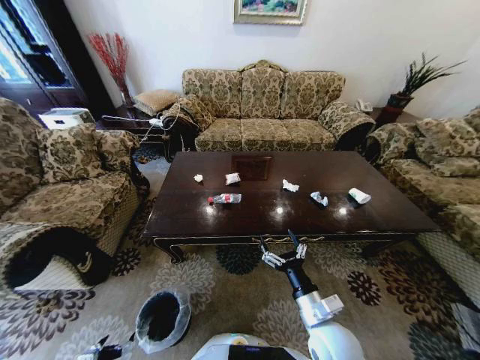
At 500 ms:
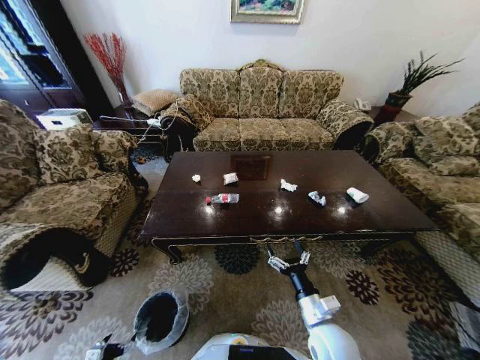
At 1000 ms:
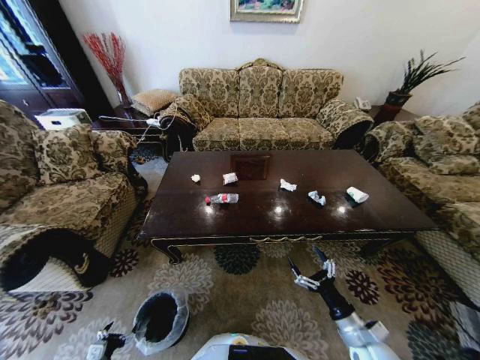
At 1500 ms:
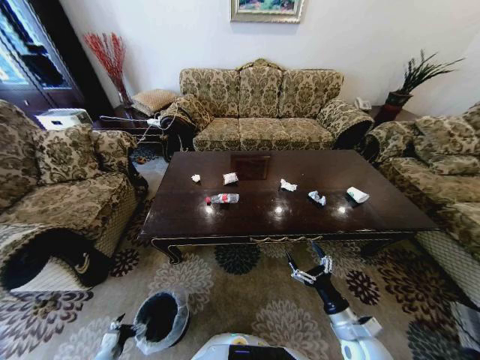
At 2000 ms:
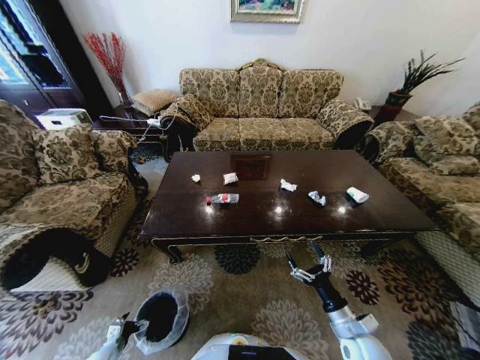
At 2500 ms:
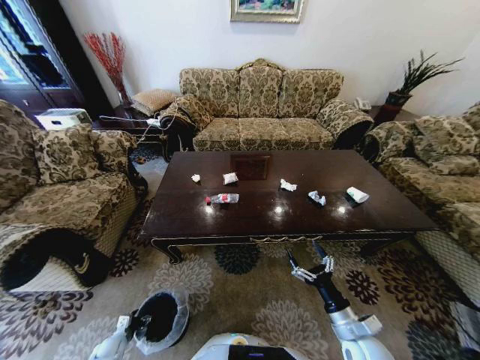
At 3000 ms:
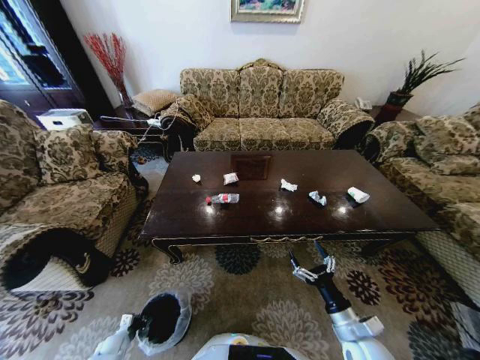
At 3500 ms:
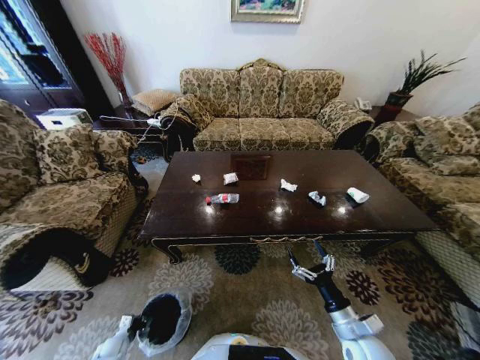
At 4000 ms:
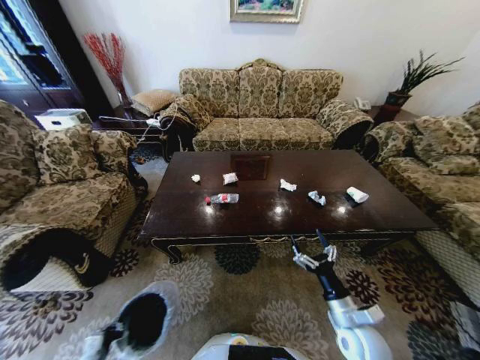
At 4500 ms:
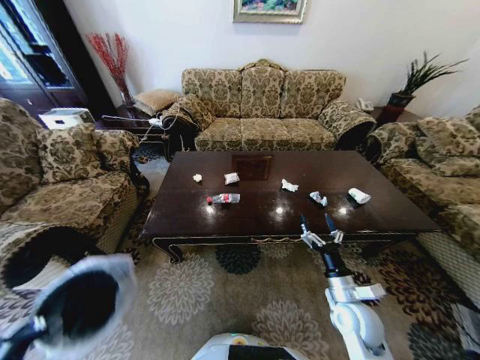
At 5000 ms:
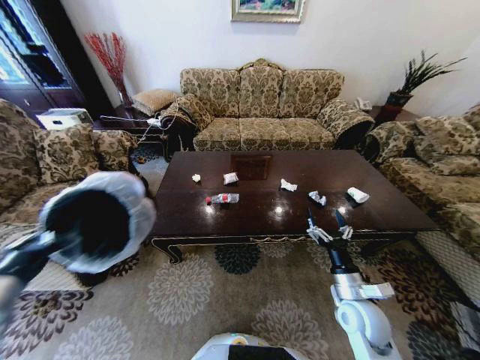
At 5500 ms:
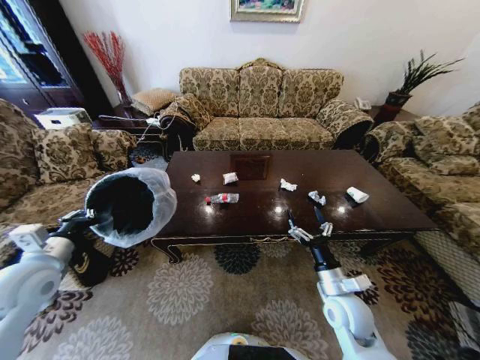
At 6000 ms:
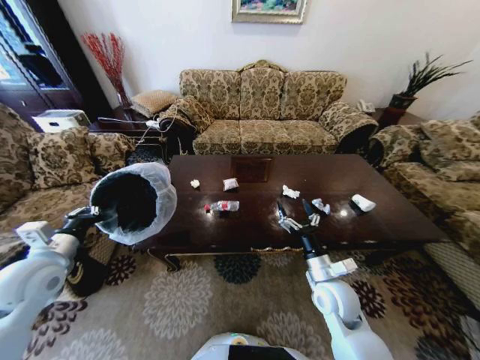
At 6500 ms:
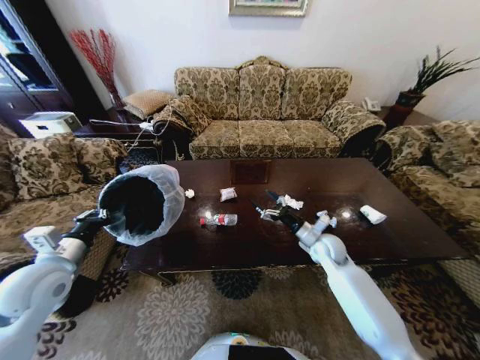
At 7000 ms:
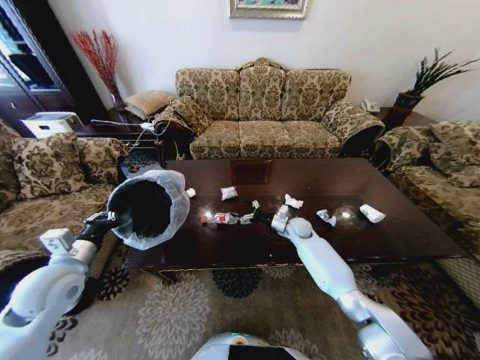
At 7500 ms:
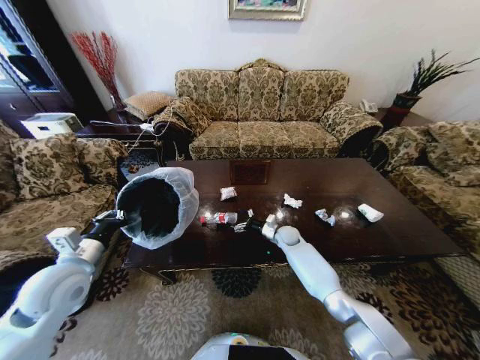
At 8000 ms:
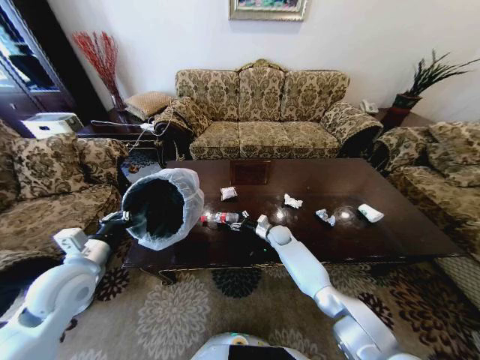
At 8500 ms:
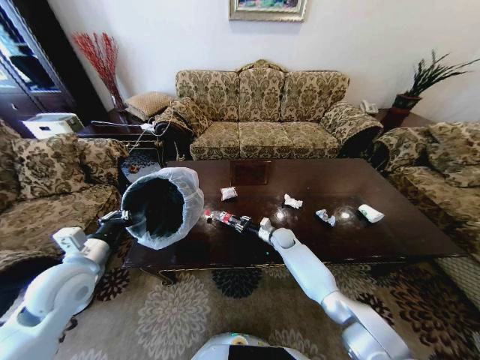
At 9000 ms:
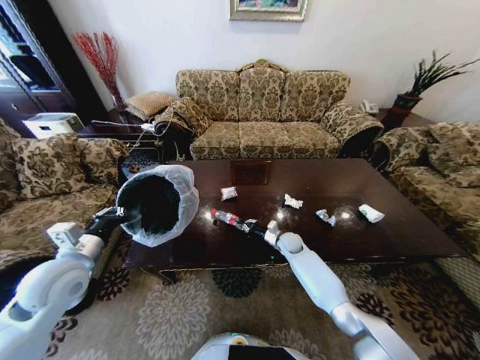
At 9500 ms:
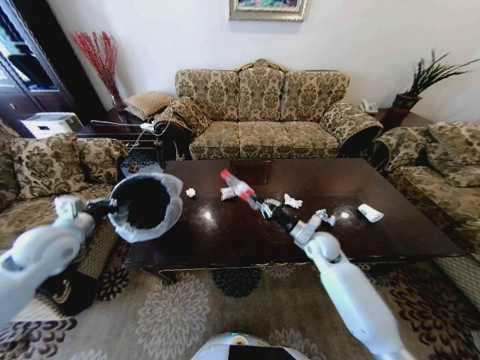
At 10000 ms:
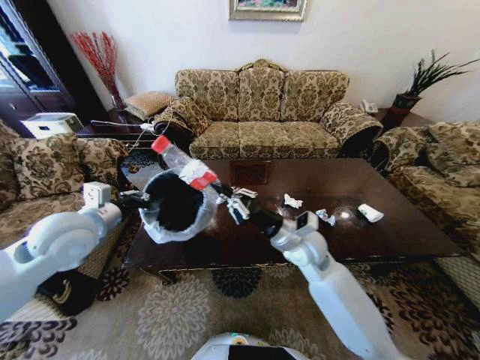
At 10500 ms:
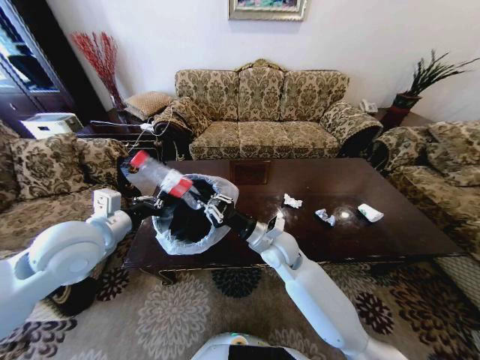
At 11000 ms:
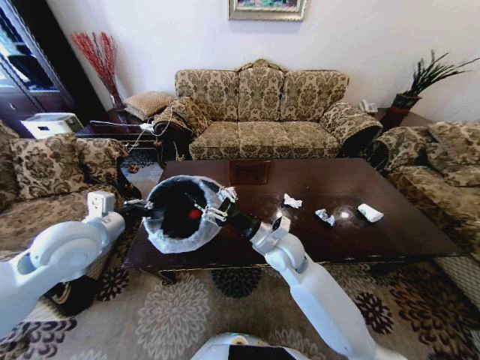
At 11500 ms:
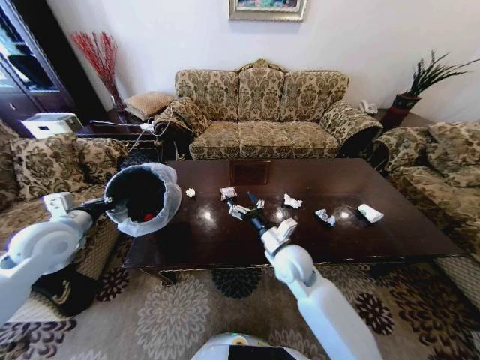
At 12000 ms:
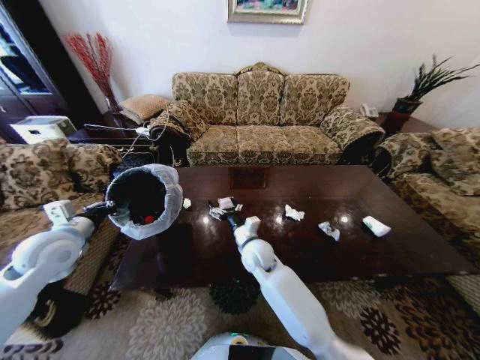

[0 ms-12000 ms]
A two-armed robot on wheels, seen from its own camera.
Task of the whole recording: Move to the front of the table and place the trash on the table into the trash bin.
0 ms to 2000 ms: The left gripper travels downward and forward by approximately 15 cm. Meanwhile the right gripper is displaced to the right and downward by some 15 cm.
2000 ms to 4000 ms: The left gripper moves upward, roughly 10 cm, and closes.
4000 ms to 6000 ms: The right gripper is displaced forward, upward and to the left by some 10 cm; the left gripper is displaced upward and forward by some 35 cm.
6000 ms to 8000 ms: The right gripper travels forward and downward by about 30 cm. Meanwhile the left gripper goes some 5 cm to the right.
8000 ms to 10000 ms: The right gripper moves upward and backward, approximately 30 cm, and closes. The left gripper travels upward and forward by approximately 10 cm.
10000 ms to 12000 ms: The left gripper moves to the left and downward, about 10 cm. The right gripper travels to the left and downward by about 15 cm, and opens up.

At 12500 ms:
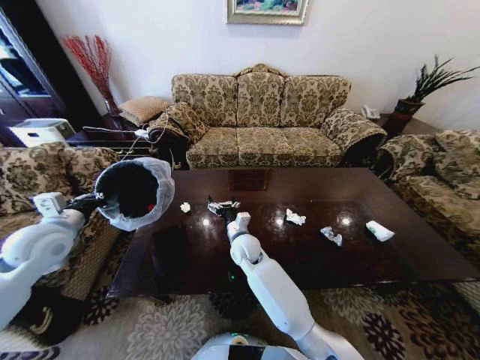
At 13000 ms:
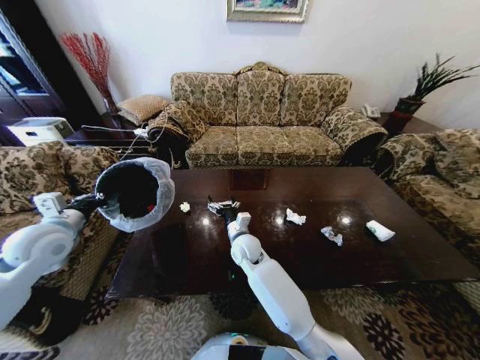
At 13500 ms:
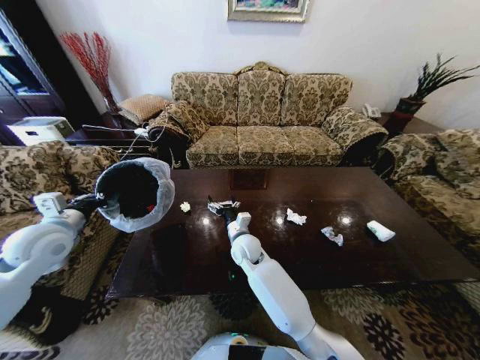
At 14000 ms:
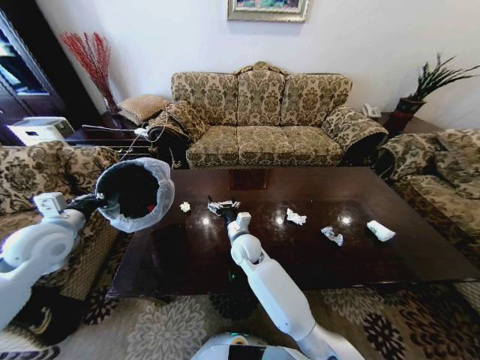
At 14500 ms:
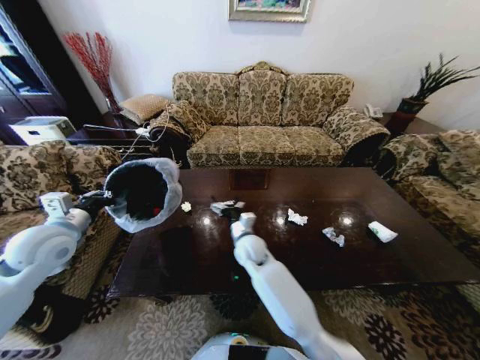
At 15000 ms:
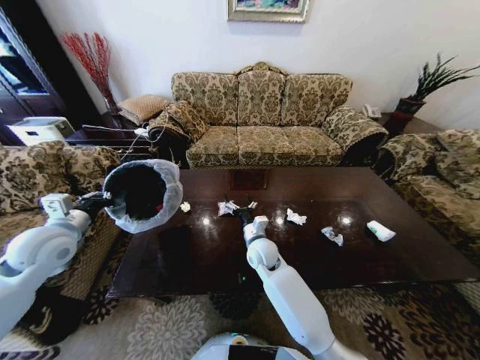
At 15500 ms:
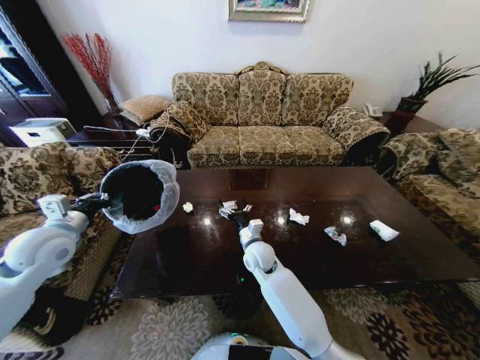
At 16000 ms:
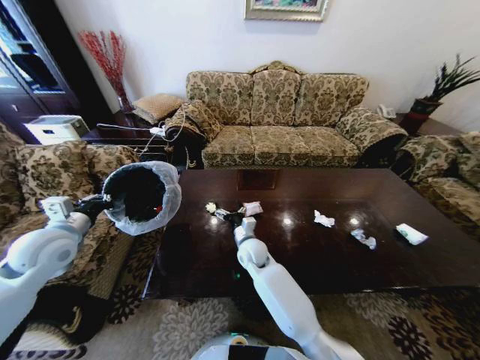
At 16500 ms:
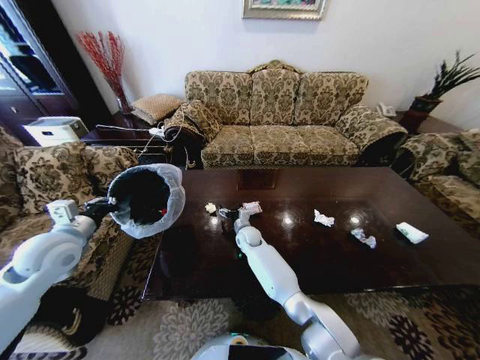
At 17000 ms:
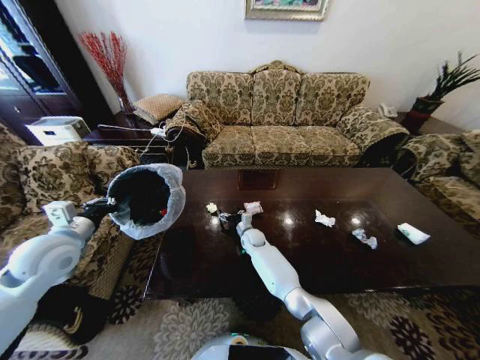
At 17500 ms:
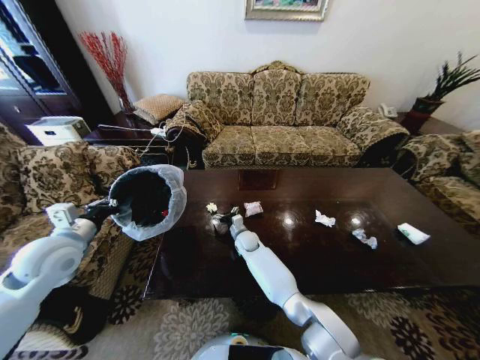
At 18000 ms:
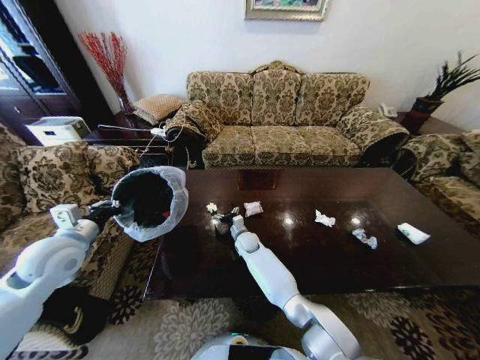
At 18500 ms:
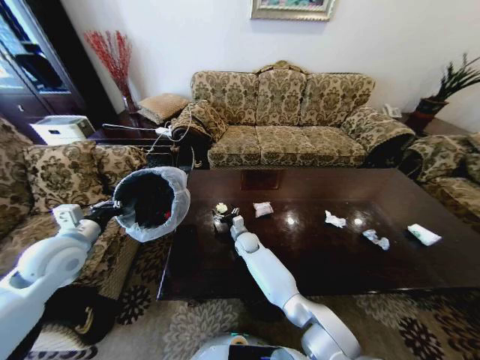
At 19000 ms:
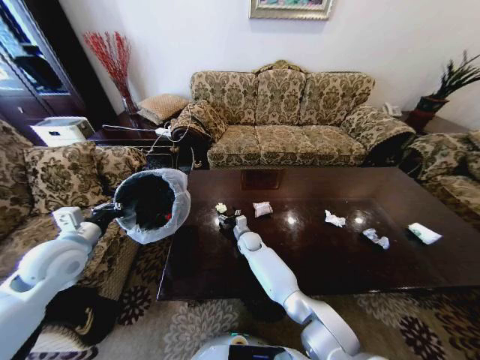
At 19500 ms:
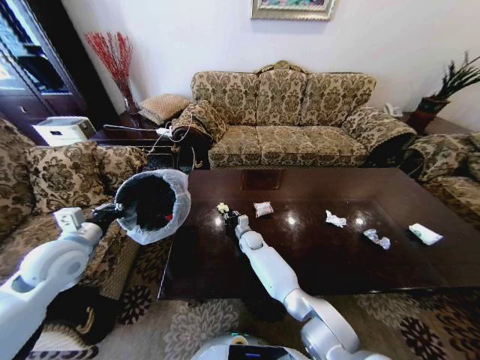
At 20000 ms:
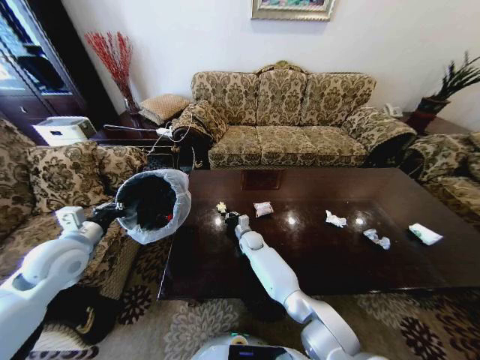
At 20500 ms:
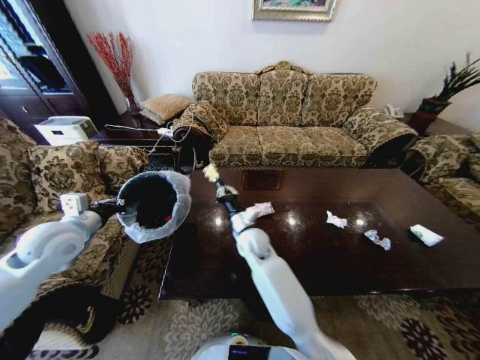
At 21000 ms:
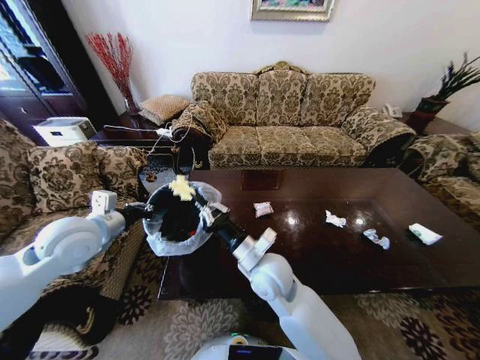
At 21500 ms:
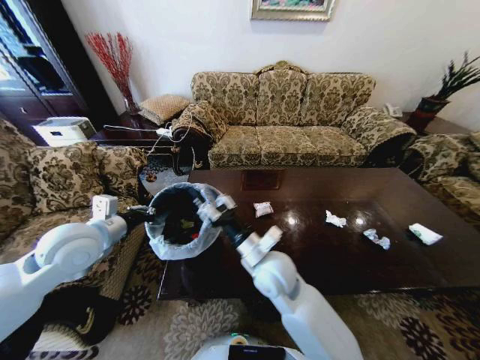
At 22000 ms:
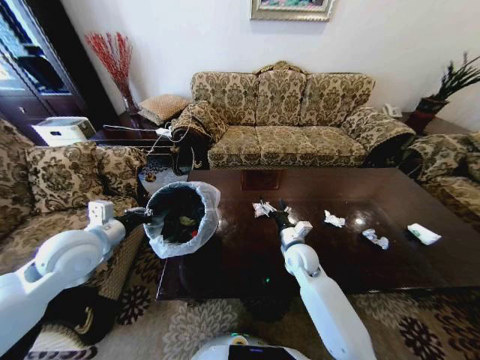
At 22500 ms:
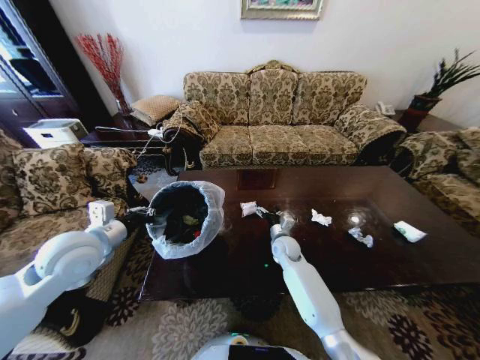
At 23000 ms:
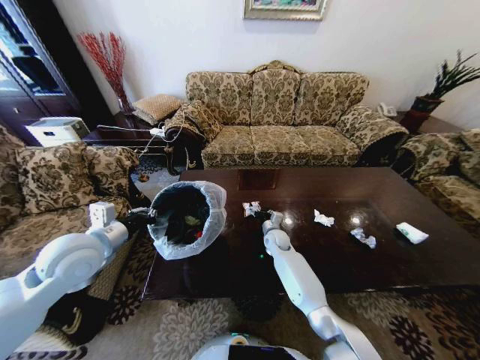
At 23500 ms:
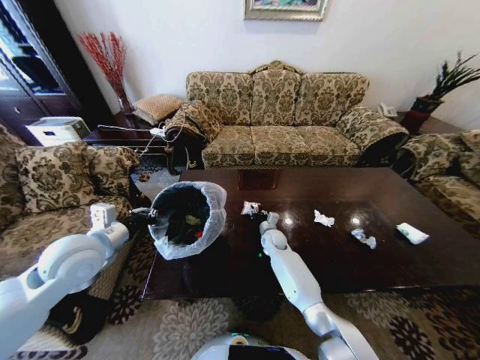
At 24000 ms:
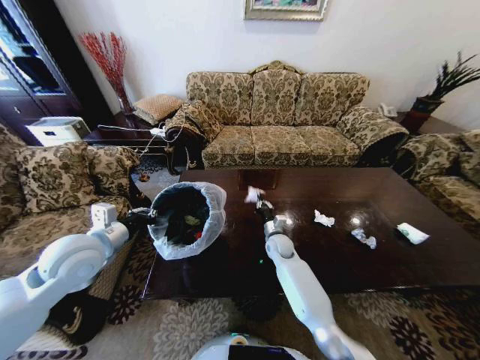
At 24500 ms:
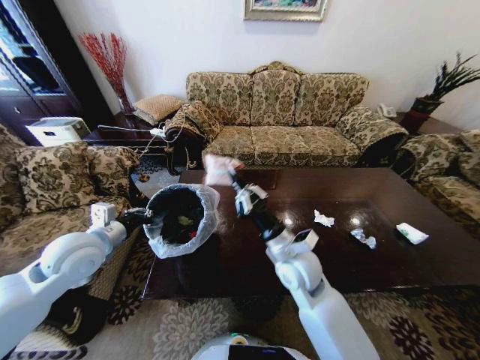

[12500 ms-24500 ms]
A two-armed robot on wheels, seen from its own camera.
Task of the whole recording: Move to the front of the table and place the trash on the table into the trash bin.
12500 ms to 14500 ms: The grippers move only a little.
14500 ms to 16500 ms: The right gripper goes some 10 cm forward and downward.
18500 ms to 20500 ms: The right gripper shifts roughly 20 cm upward and backward, and closes its fingers.
20500 ms to 22500 ms: The left gripper is displaced to the right by roughly 5 cm. Meanwhile the right gripper shifts some 20 cm downward, to the right and forward, and opens its fingers.
22500 ms to 24500 ms: The right gripper is displaced upward and backward by about 20 cm, and closes its fingers.

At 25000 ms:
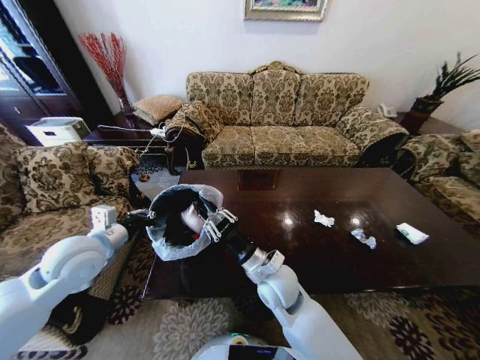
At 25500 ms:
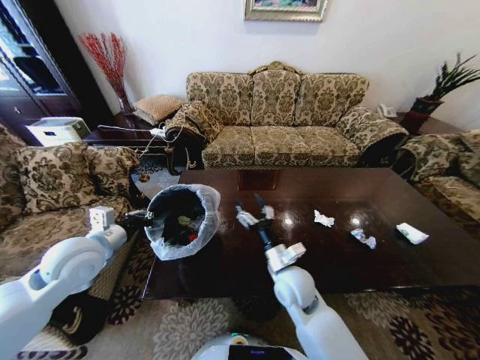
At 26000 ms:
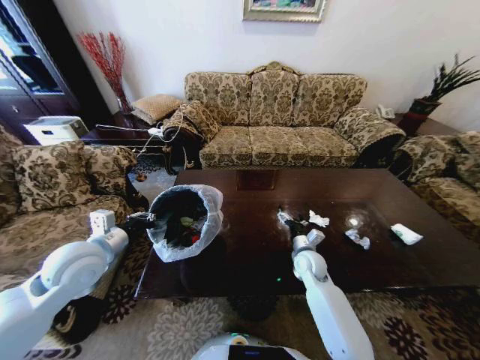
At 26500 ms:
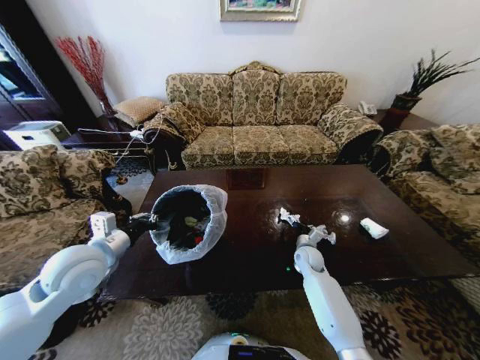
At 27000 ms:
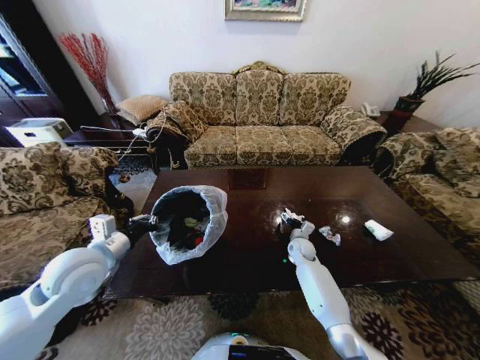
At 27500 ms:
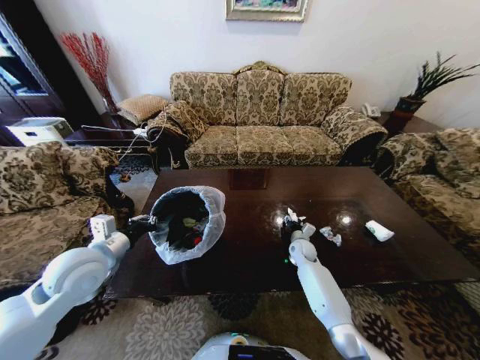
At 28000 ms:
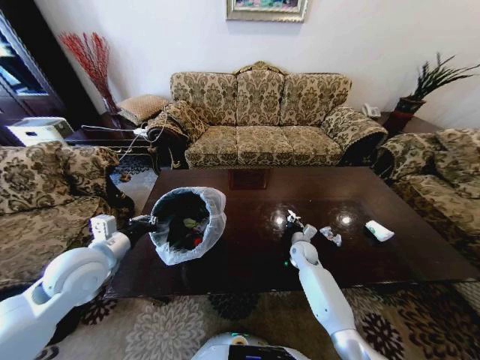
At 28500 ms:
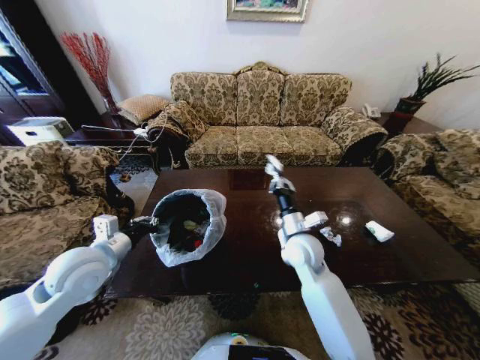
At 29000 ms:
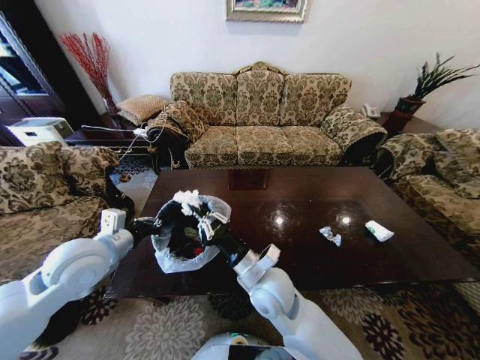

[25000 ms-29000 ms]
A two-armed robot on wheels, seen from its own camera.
Task of the whole recording: Move to the front of the table and place the trash on the table into the trash bin.
25000 ms to 27000 ms: The right gripper travels forward, downward and to the right by about 30 cm, and opens its fingers.
27000 ms to 29000 ms: The right gripper moves backward, upward and to the left, roughly 35 cm, and closes.
